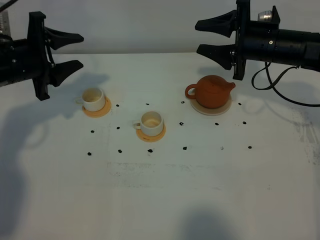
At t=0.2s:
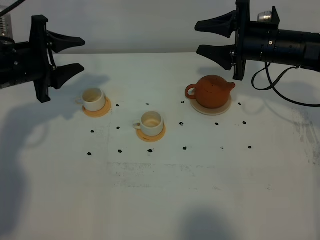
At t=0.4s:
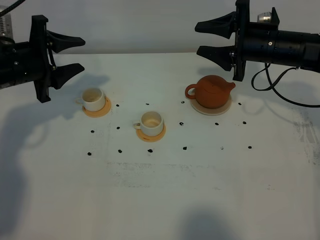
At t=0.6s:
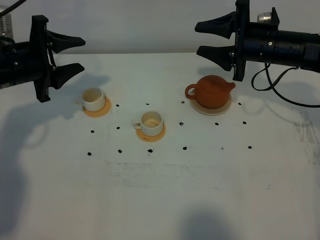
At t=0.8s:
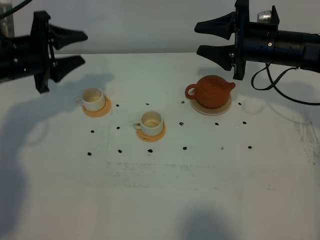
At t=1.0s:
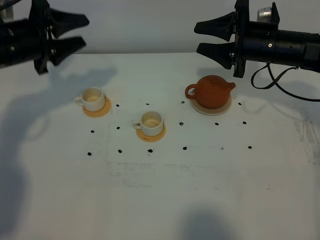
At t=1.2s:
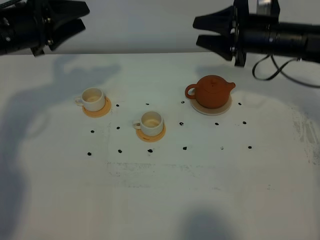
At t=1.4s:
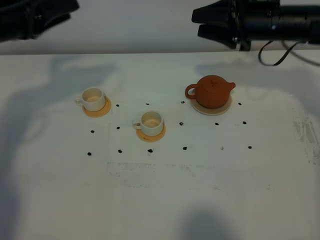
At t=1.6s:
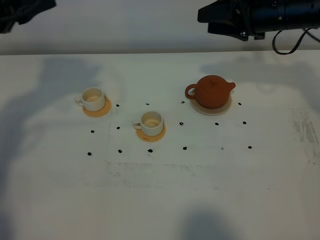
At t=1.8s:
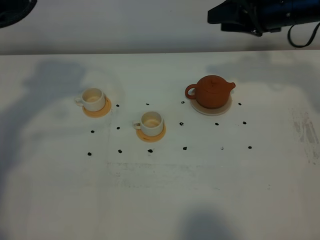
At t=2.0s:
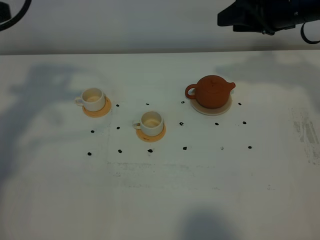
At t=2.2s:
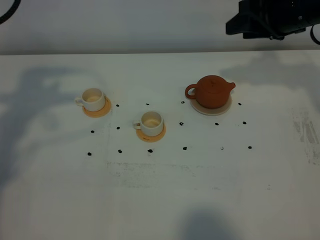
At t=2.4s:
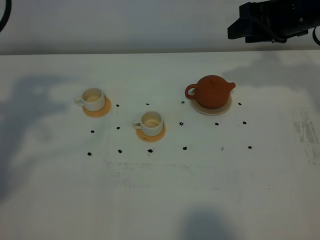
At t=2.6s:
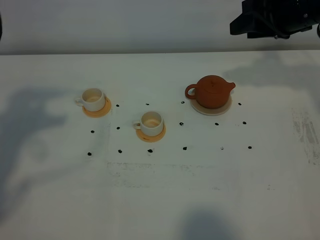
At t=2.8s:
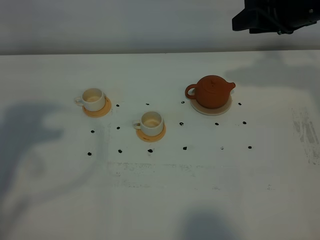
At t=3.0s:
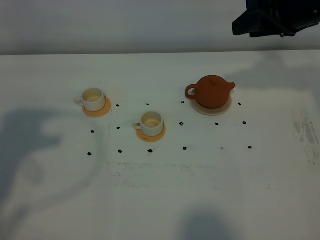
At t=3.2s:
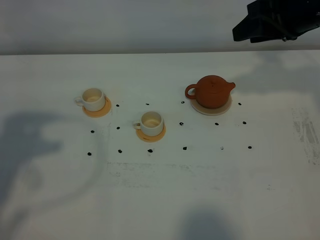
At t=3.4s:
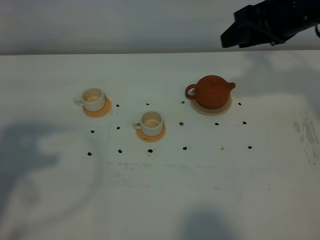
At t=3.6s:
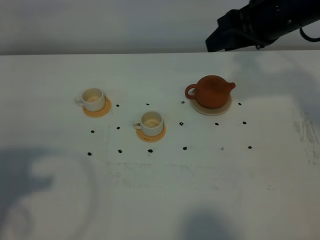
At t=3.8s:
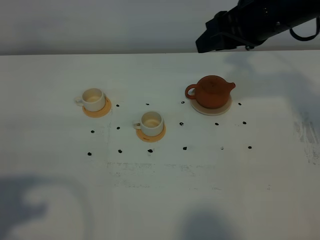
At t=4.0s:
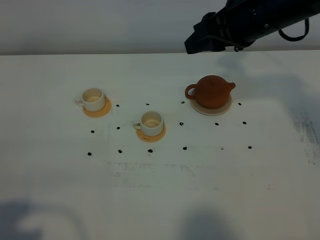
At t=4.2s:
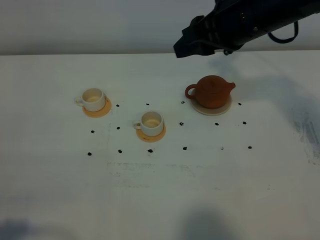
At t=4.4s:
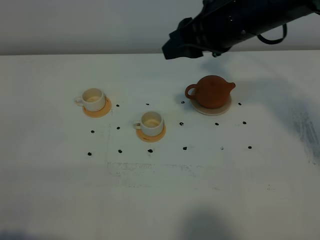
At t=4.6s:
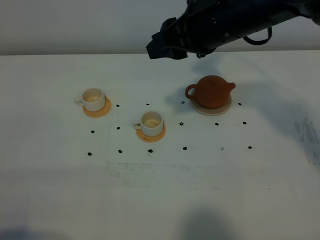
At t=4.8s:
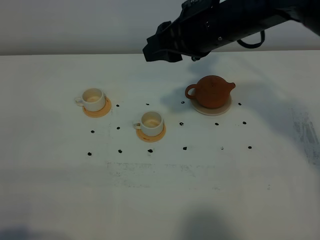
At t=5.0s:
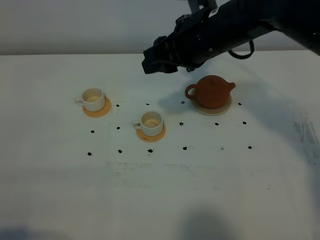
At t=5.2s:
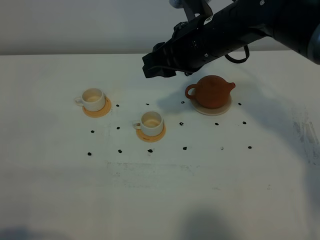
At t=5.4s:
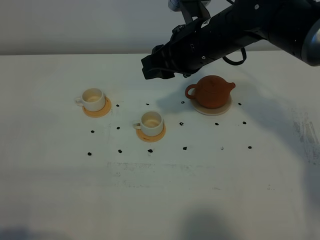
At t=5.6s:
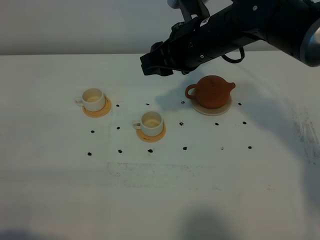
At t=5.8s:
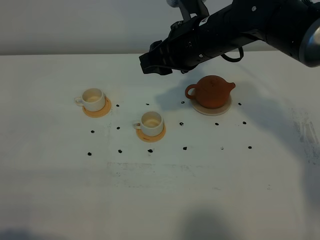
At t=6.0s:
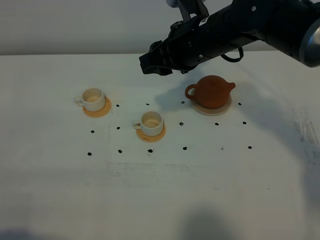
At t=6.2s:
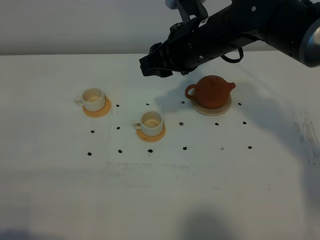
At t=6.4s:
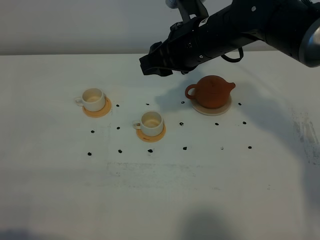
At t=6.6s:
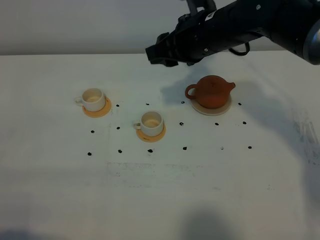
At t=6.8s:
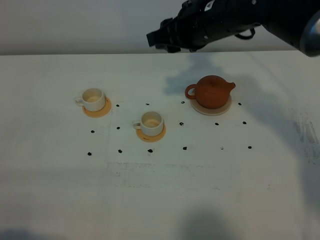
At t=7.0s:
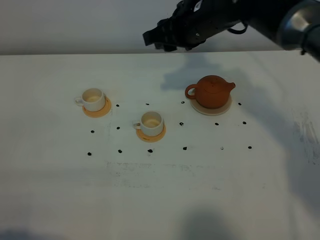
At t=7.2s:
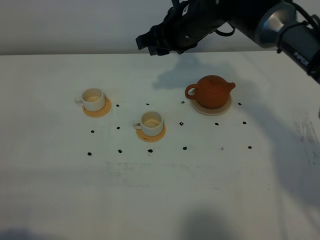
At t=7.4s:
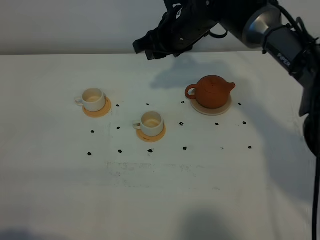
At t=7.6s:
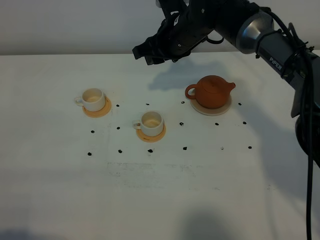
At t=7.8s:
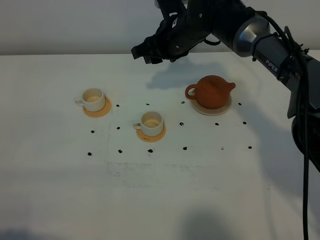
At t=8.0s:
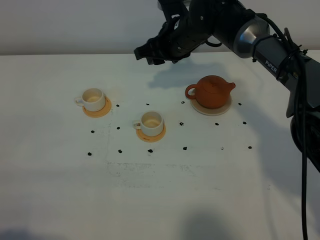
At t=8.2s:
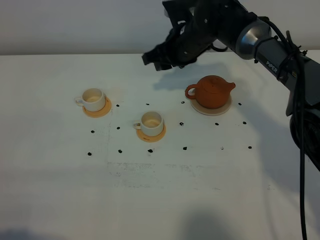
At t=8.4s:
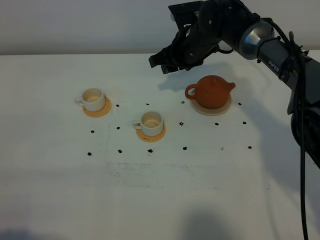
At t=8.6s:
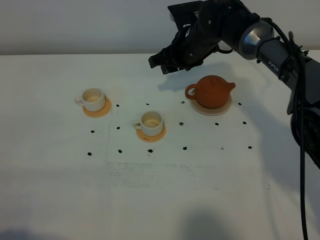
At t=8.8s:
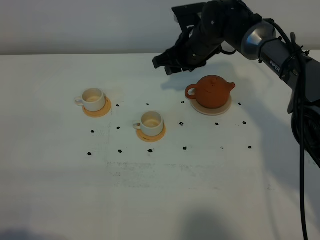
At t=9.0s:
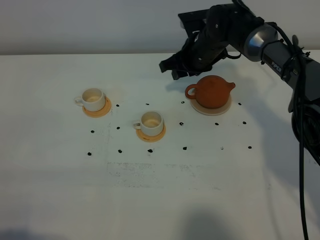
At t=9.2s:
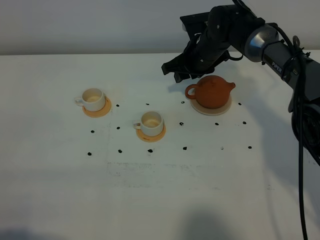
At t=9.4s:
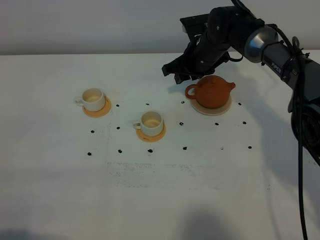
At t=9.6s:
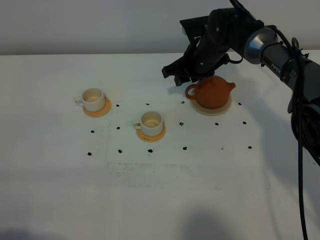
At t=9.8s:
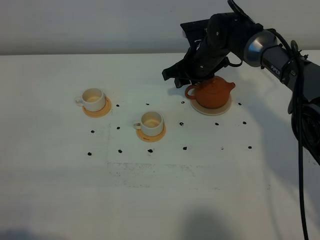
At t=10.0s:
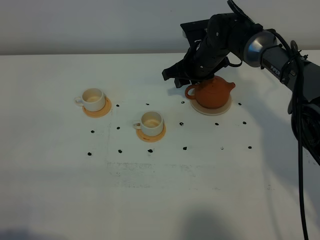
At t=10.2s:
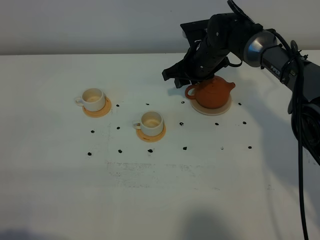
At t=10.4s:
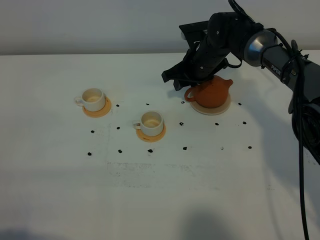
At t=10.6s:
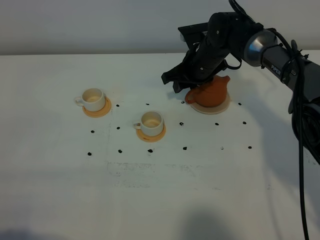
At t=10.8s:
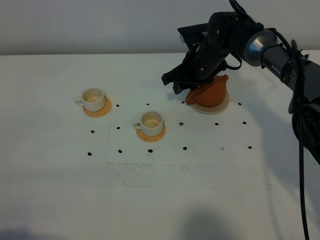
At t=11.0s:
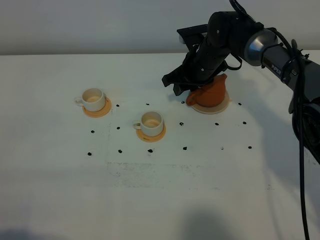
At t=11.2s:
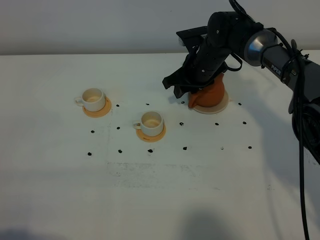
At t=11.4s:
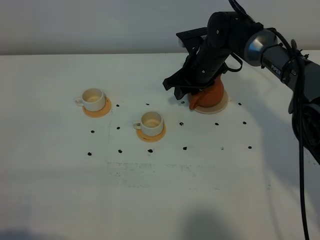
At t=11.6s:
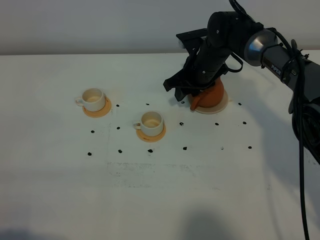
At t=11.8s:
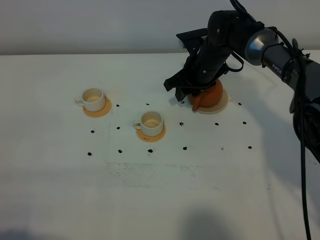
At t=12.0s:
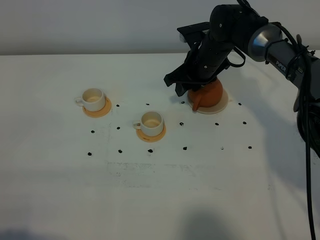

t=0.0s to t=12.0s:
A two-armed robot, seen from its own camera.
Task of the whole recording: grasp the brown teapot and pour the tea into the two white teacups one by one, put the brown teapot back in its original place.
t=0.0s to t=1.6s: The left gripper shifts roughly 15 cm upward, and closes its fingers, while the right gripper moves upward, approximately 5 cm.
t=1.6s to t=3.0s: The left gripper goes approximately 15 cm backward, and closes, while the right gripper changes place by about 5 cm.
t=3.0s to t=4.4s: The left gripper moves backward and downward, about 20 cm. Meanwhile the right gripper travels to the left and backward by about 10 cm.
t=4.4s to t=6.0s: The right gripper heads downward, covering approximately 5 cm.
t=6.0s to t=7.6s: The right gripper moves forward and downward, about 10 cm.
t=7.6s to t=9.0s: The right gripper is displaced downward by approximately 5 cm.
t=9.0s to t=12.0s: There are only small adjustments of the grippers.

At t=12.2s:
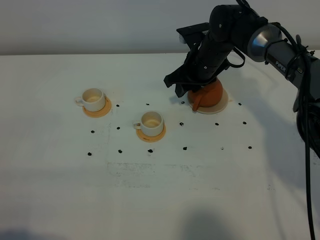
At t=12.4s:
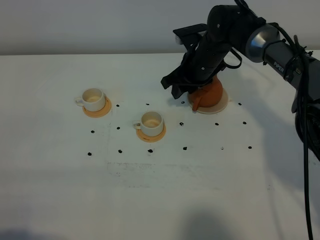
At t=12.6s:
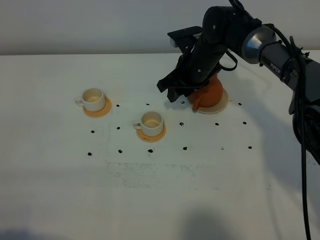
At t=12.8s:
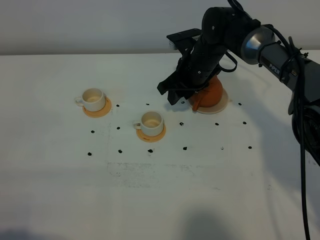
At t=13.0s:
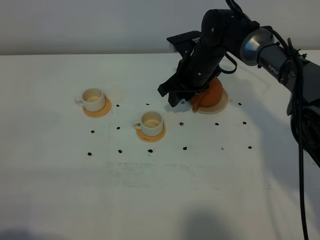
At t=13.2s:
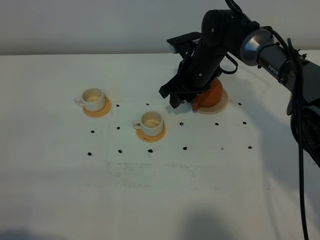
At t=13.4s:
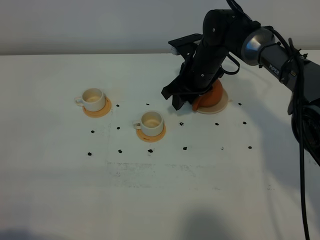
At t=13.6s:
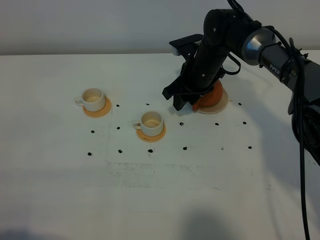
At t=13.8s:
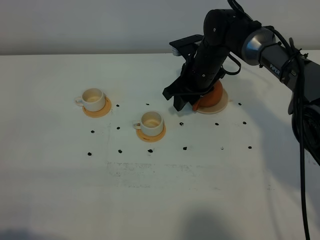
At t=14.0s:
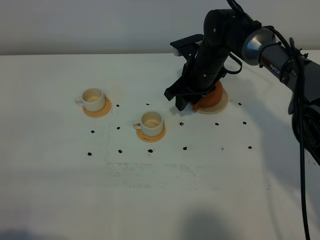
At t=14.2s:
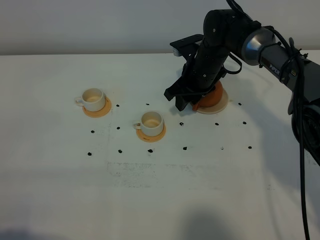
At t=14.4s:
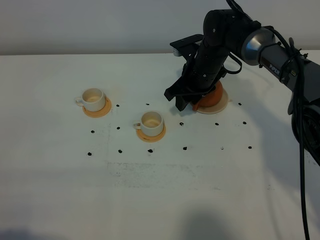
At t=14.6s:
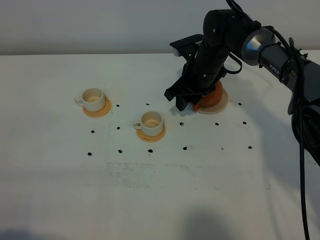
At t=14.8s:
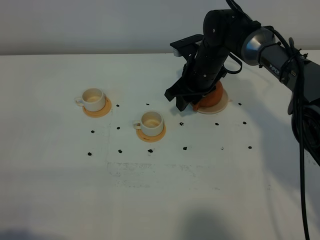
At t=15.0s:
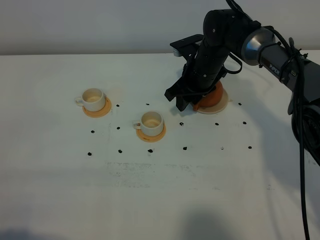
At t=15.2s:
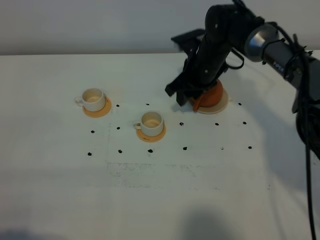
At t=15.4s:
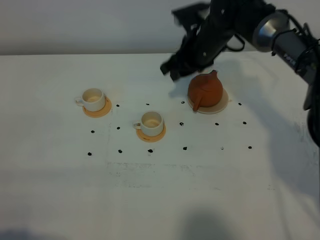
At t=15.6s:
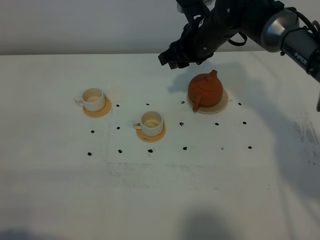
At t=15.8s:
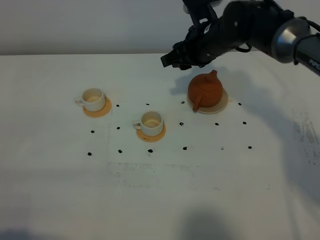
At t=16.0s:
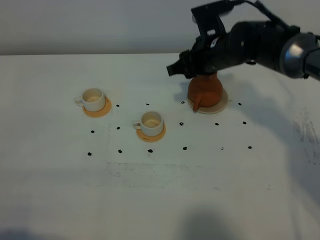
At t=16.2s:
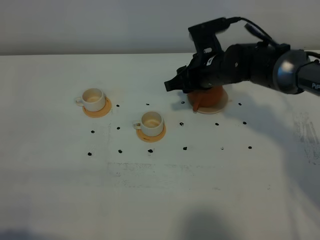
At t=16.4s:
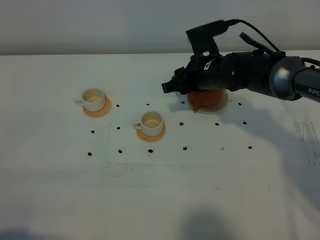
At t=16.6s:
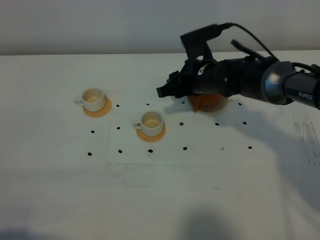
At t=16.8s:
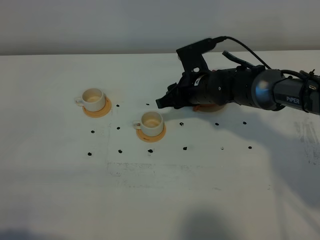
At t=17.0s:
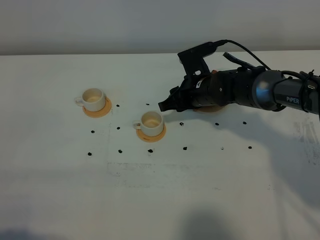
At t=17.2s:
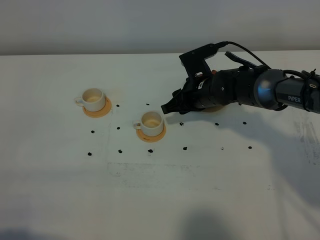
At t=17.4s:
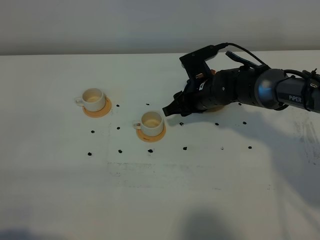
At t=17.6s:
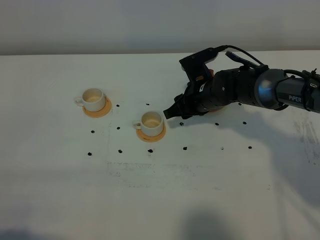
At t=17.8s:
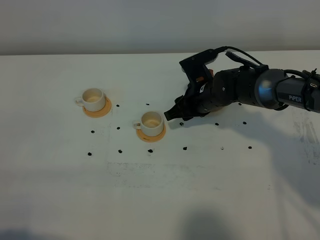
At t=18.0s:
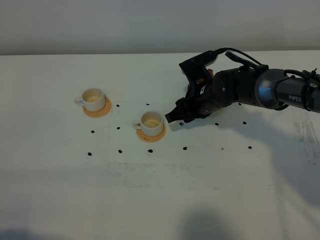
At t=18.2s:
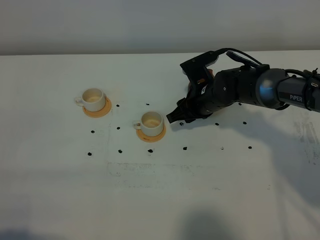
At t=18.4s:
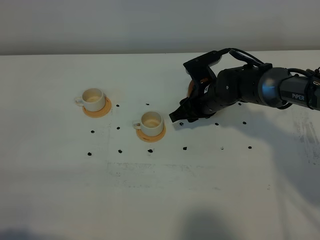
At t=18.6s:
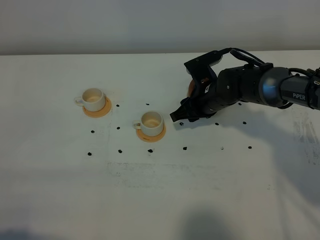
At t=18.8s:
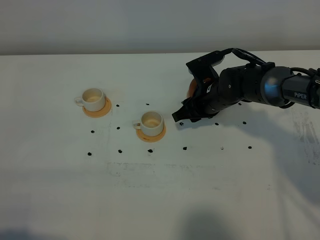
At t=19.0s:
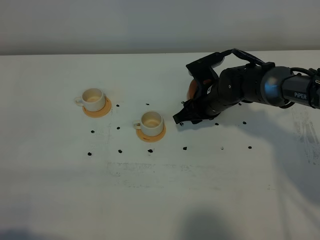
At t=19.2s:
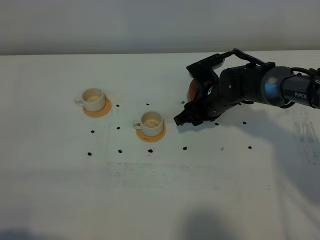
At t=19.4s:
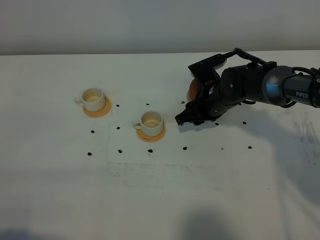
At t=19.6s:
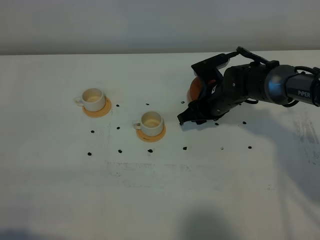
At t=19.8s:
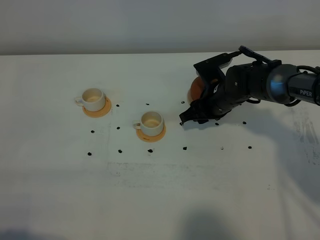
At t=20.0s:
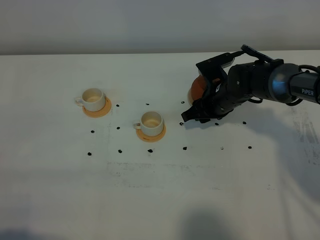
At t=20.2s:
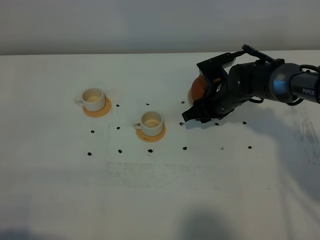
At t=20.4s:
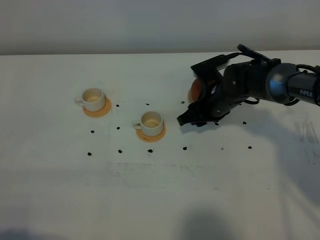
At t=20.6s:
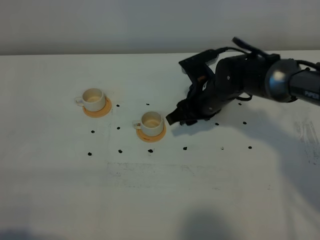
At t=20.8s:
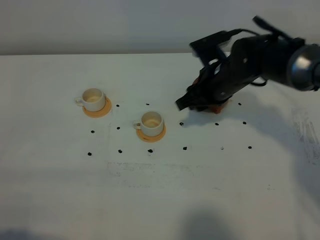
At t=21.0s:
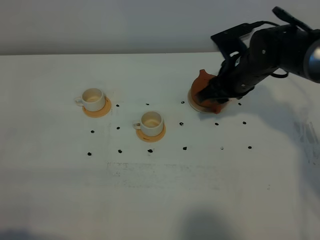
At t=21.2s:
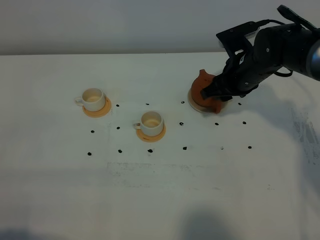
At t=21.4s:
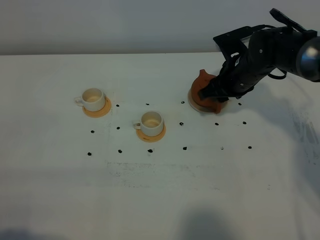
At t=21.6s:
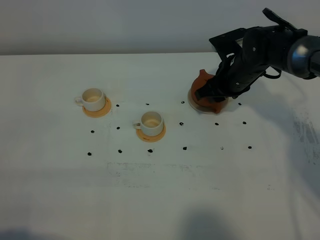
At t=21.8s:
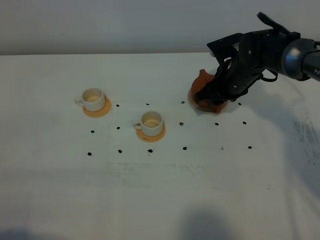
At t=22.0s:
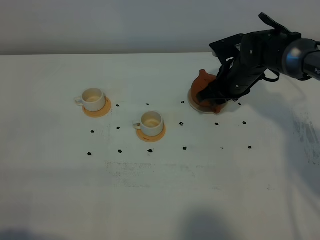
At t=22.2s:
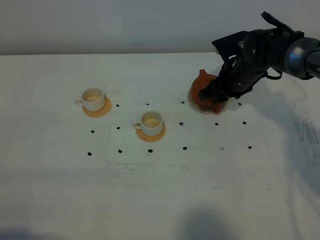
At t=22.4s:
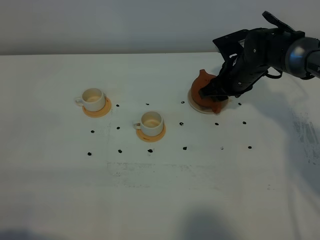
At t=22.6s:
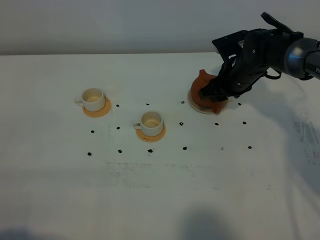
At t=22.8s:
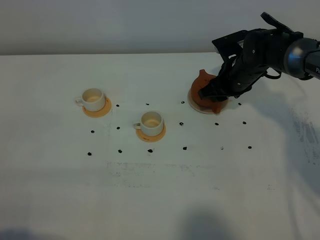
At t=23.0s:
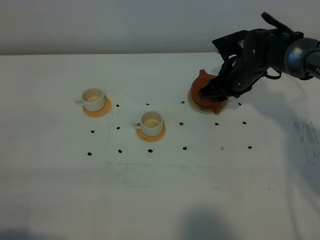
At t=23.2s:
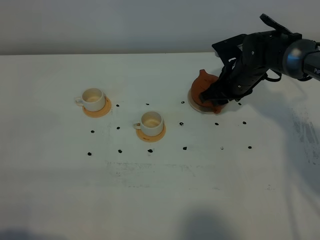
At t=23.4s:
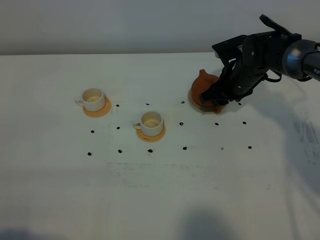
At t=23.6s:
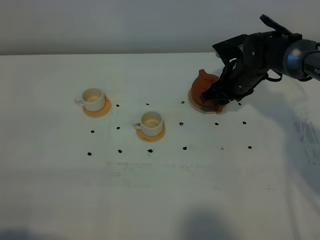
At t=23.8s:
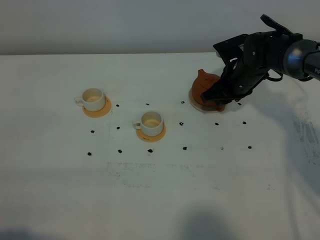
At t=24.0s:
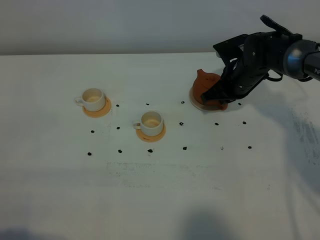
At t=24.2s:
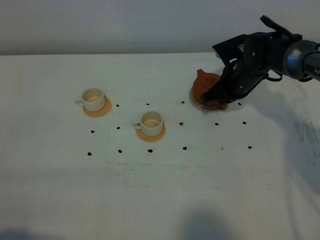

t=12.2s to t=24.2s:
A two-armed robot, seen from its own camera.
Task of the whole recording: grasp the brown teapot and pour the tea into the two white teacups one by one, put the brown teapot back in its original place.
t=12.2s to t=15.2s: The grippers make only small movements.
t=15.2s to t=16.6s: The right gripper ends up some 5 cm from where it was.
t=16.6s to t=19.8s: The grippers move only a little.
t=19.8s to t=21.2s: The right gripper heads upward, covering about 5 cm.
t=21.2s to t=22.6s: The right gripper shifts by some 5 cm.
t=22.6s to t=24.2s: The right gripper closes.
